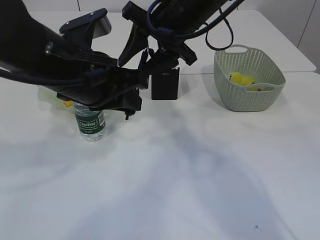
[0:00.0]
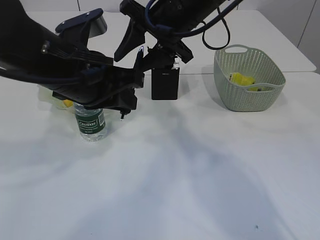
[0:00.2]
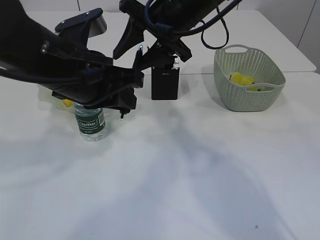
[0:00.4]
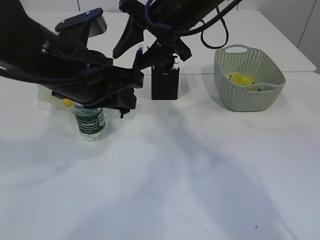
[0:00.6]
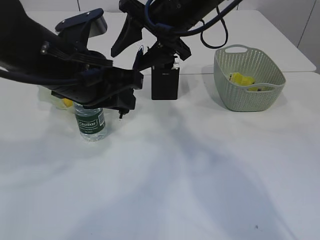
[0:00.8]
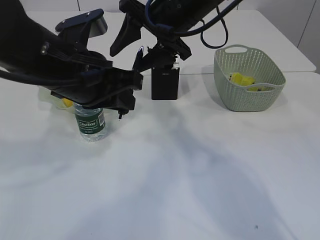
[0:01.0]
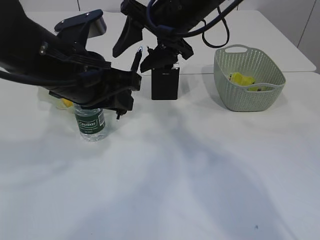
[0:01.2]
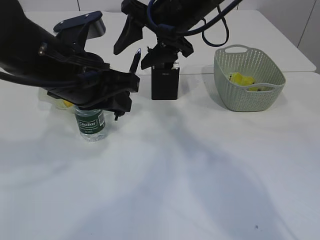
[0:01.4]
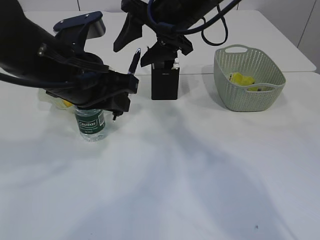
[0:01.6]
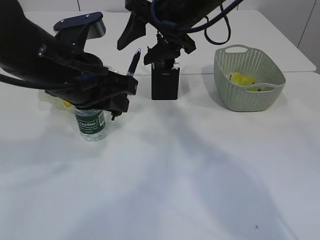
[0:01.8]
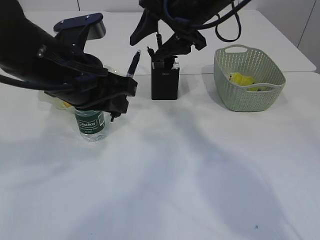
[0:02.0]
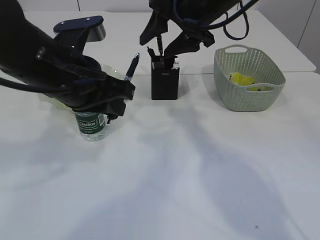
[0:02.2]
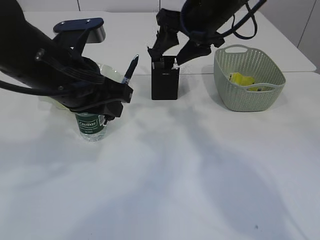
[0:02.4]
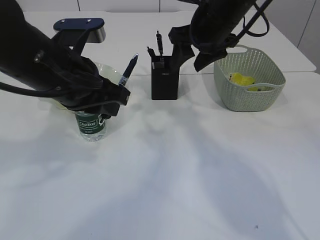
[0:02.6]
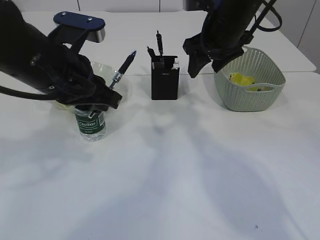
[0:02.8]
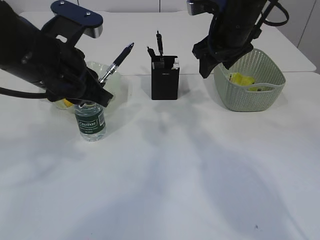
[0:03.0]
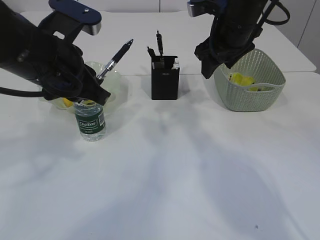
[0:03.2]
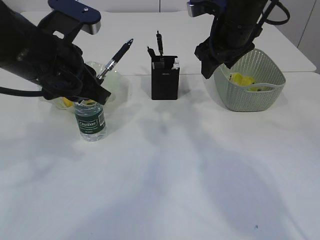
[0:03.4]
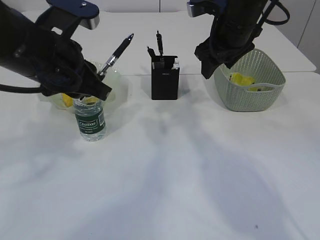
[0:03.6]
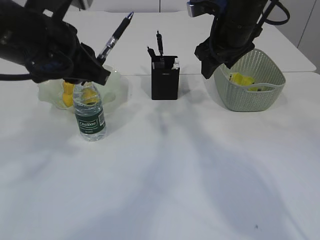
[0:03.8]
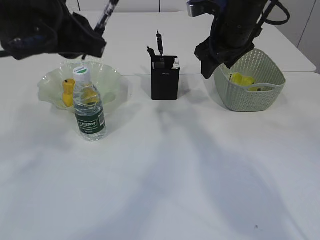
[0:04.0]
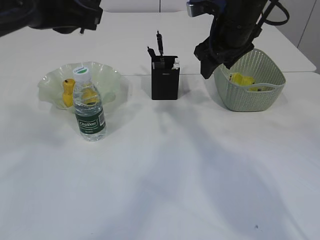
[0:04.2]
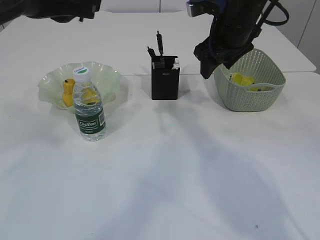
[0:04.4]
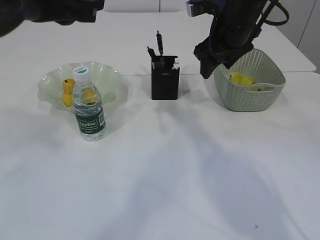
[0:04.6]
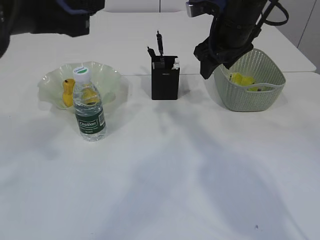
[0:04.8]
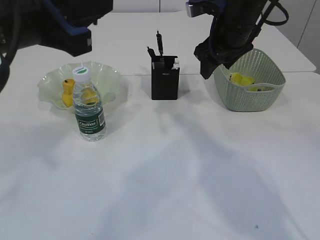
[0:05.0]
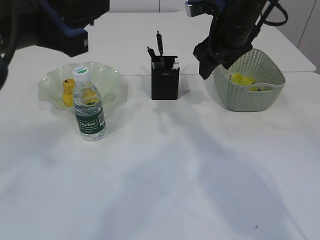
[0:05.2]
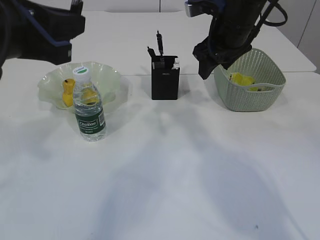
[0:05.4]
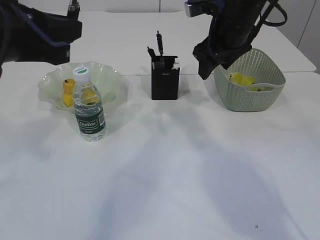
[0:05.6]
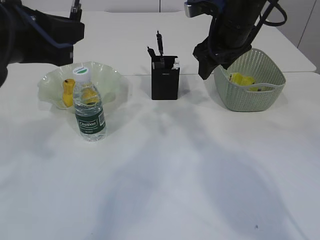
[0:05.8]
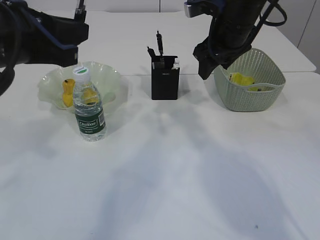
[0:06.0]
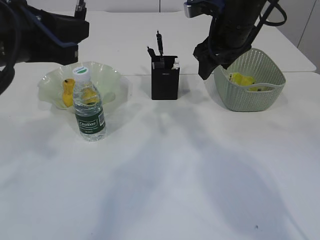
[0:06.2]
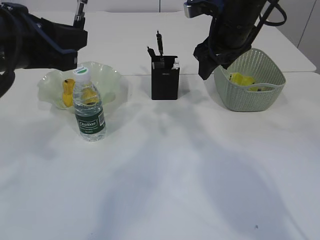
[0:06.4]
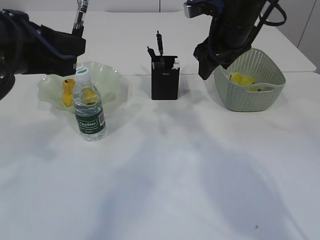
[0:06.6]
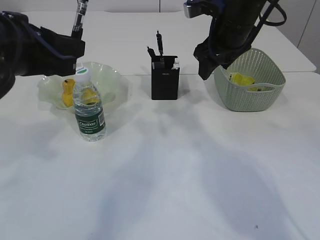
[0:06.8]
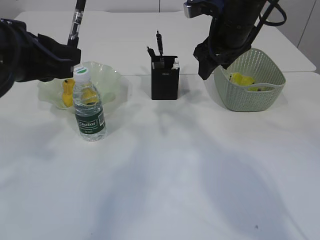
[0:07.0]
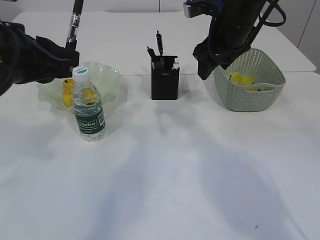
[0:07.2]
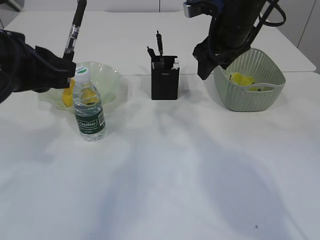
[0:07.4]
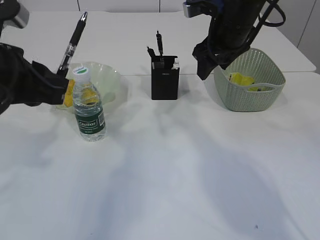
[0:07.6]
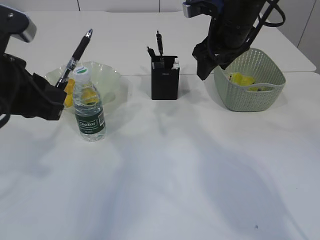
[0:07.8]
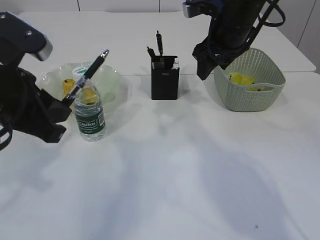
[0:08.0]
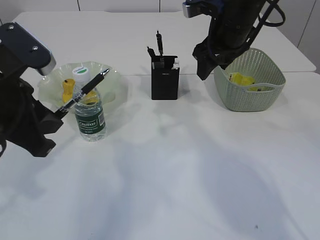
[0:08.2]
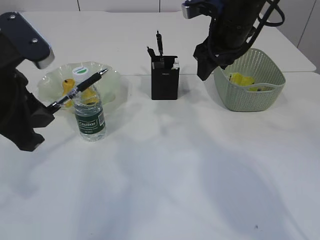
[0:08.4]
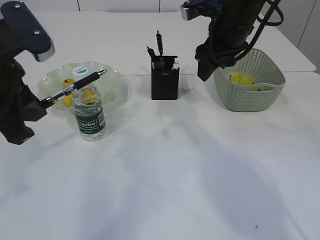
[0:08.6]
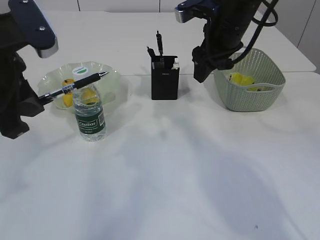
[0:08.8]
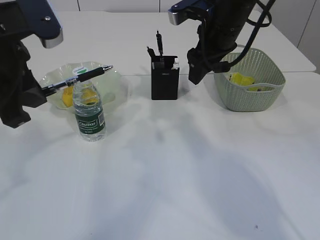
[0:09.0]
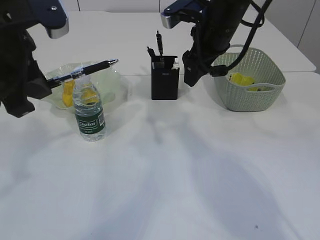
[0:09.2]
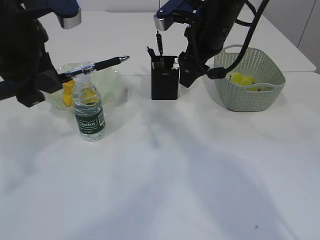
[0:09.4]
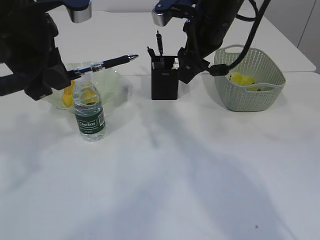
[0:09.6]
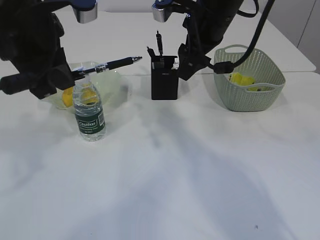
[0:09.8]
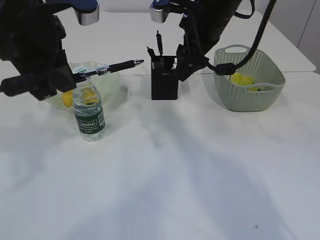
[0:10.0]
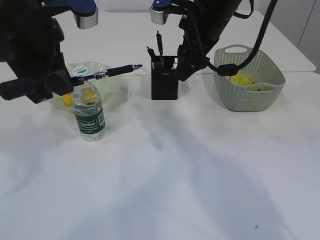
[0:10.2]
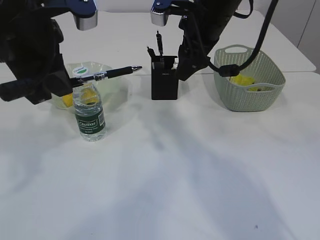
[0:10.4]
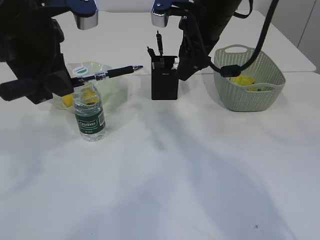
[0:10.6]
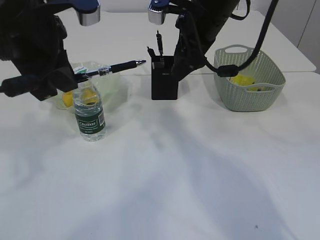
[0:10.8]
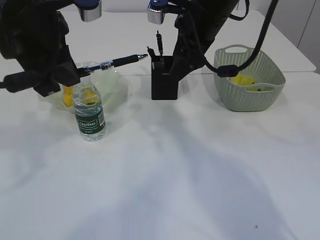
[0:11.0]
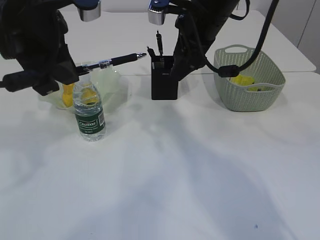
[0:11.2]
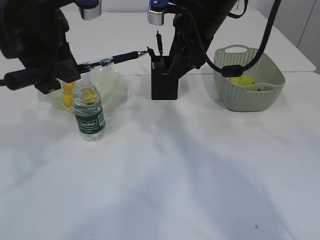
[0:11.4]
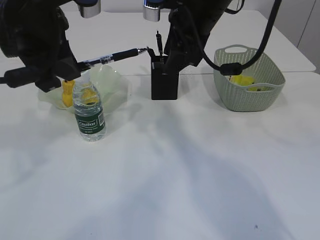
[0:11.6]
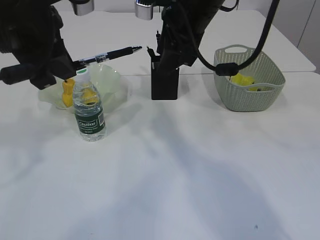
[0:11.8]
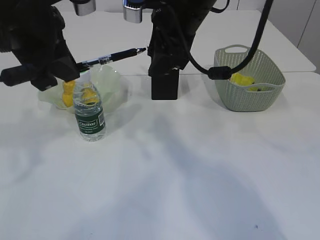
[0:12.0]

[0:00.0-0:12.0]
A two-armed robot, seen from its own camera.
0:00.0 to 0:01.6: There are only small adjustments of the grippers.
0:01.6 to 0:03.0: The right gripper shifts some 10 cm to the right.
0:03.0 to 0:04.4: The left gripper heads upward, covering approximately 10 cm.
0:04.4 to 0:06.0: The left gripper heads downward, covering approximately 5 cm.
0:10.4 to 0:12.0: The right gripper changes place by approximately 5 cm.

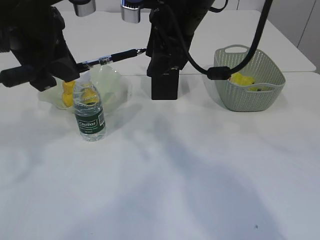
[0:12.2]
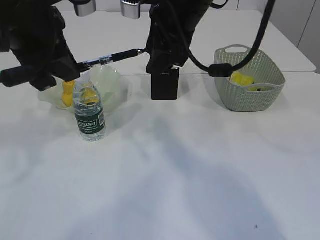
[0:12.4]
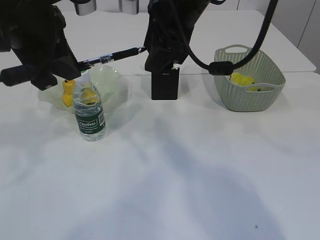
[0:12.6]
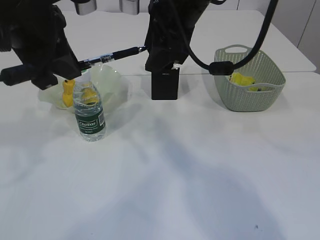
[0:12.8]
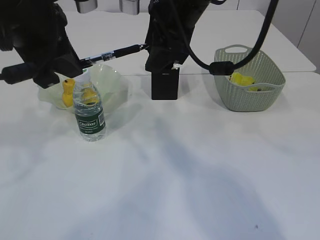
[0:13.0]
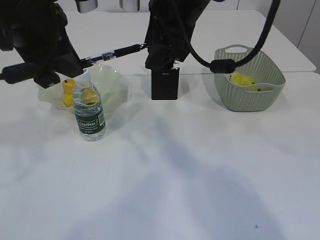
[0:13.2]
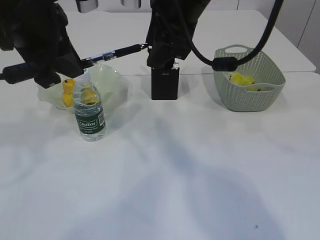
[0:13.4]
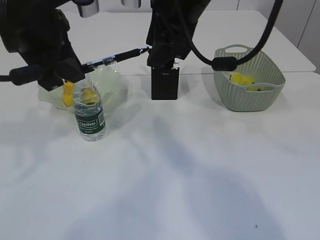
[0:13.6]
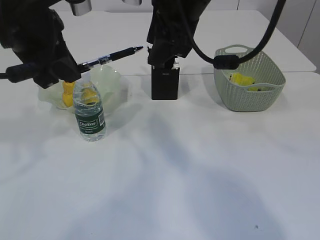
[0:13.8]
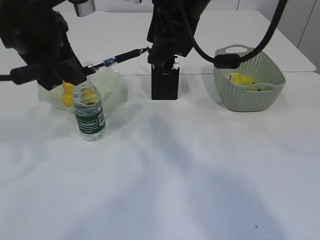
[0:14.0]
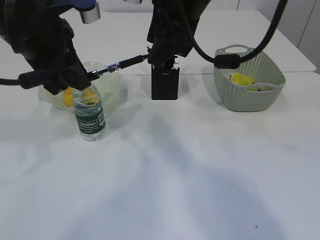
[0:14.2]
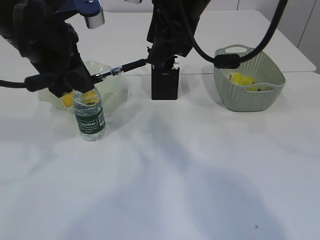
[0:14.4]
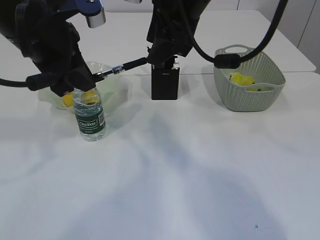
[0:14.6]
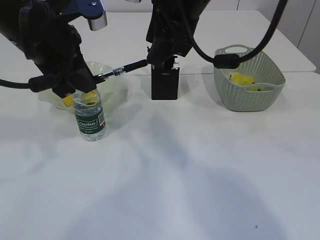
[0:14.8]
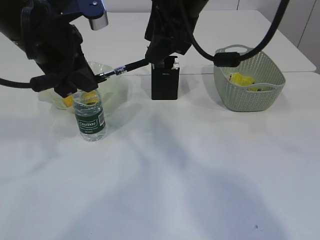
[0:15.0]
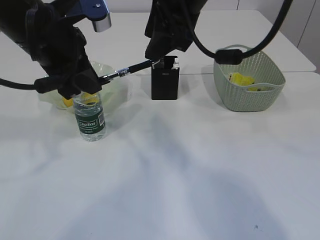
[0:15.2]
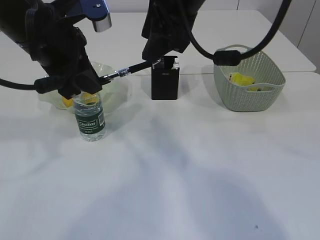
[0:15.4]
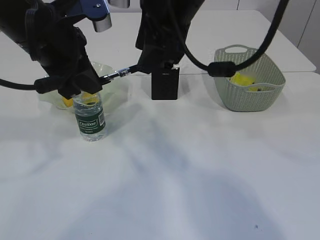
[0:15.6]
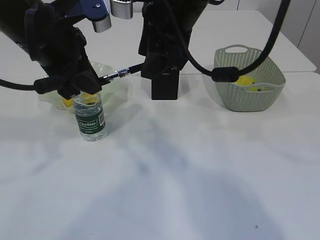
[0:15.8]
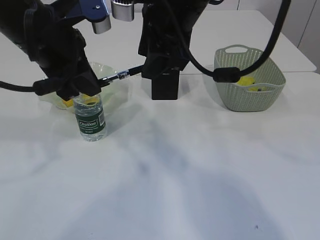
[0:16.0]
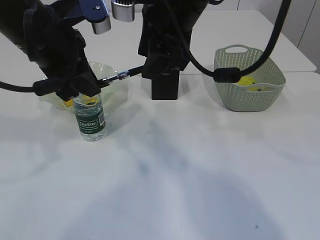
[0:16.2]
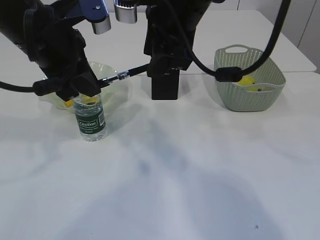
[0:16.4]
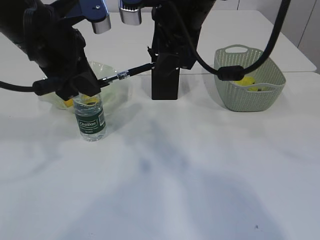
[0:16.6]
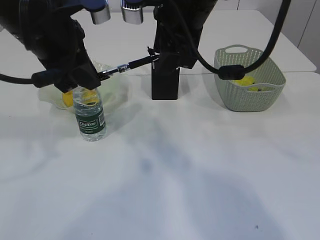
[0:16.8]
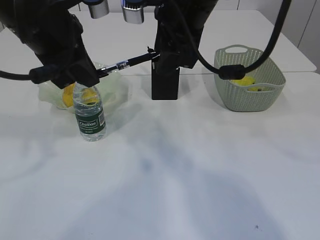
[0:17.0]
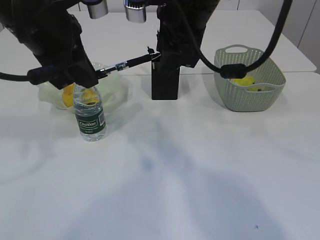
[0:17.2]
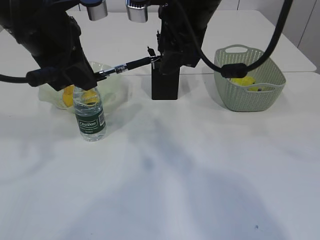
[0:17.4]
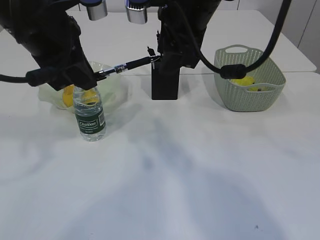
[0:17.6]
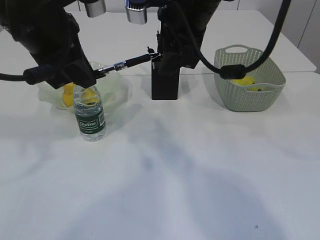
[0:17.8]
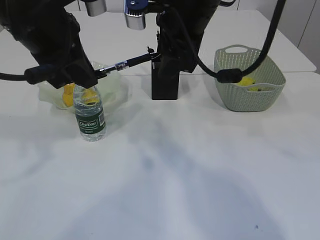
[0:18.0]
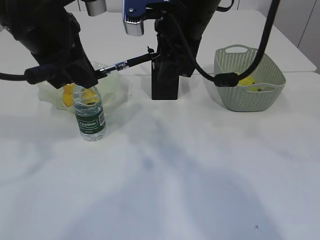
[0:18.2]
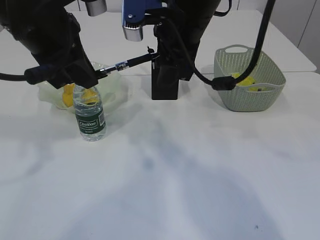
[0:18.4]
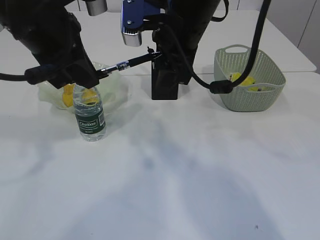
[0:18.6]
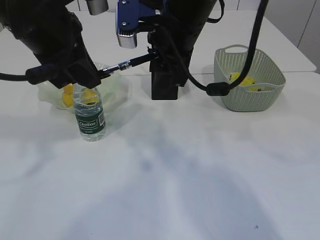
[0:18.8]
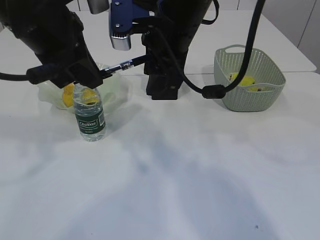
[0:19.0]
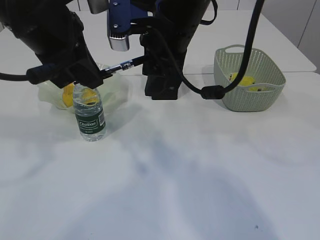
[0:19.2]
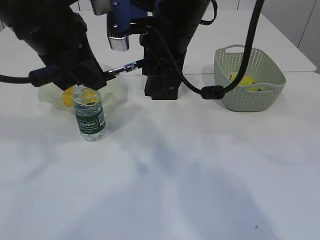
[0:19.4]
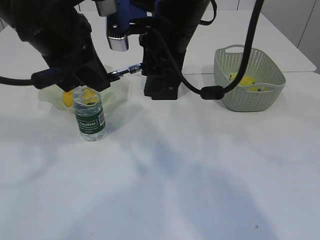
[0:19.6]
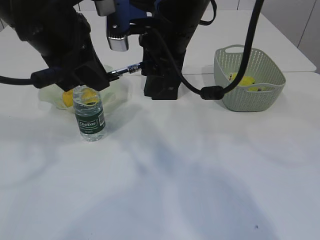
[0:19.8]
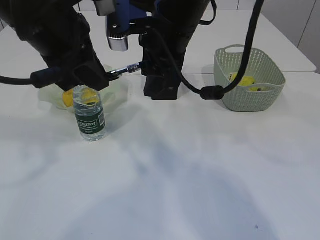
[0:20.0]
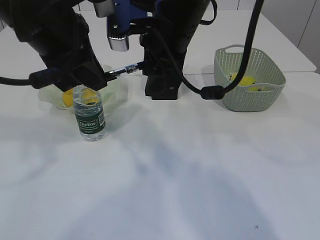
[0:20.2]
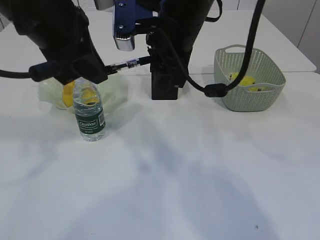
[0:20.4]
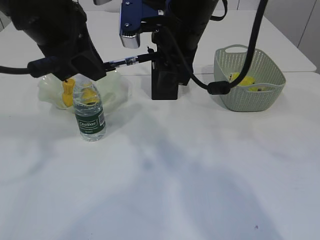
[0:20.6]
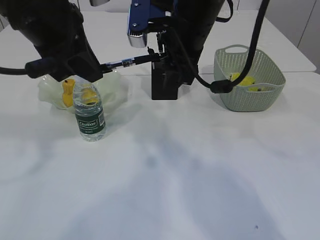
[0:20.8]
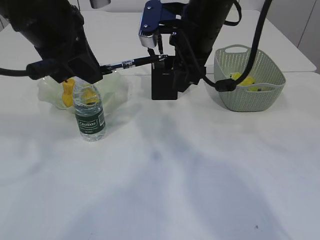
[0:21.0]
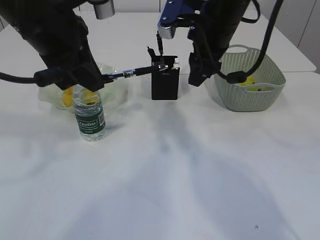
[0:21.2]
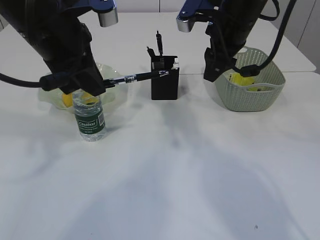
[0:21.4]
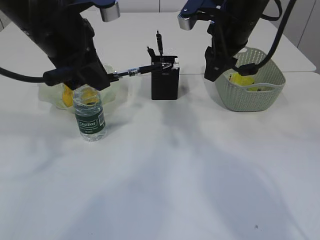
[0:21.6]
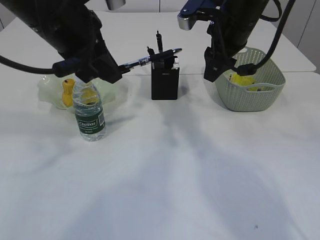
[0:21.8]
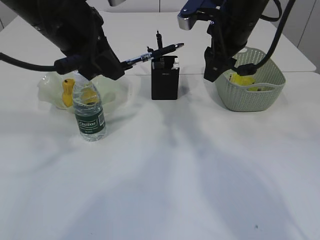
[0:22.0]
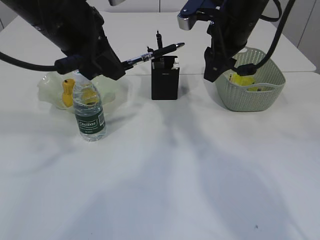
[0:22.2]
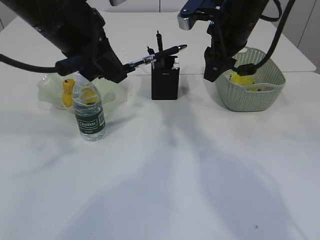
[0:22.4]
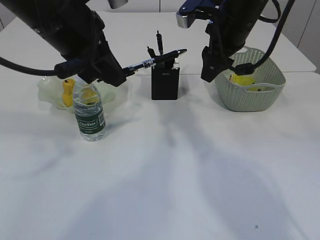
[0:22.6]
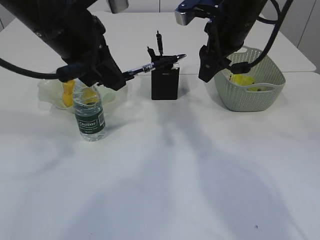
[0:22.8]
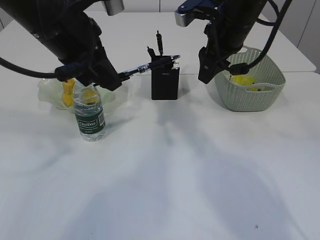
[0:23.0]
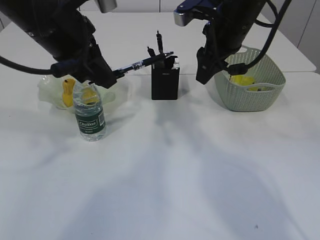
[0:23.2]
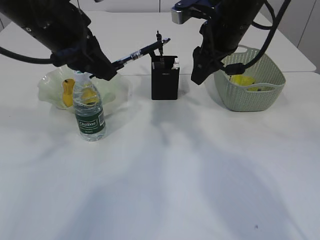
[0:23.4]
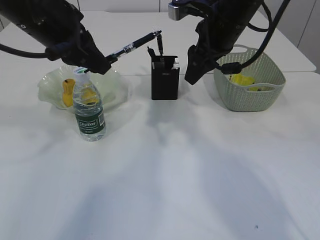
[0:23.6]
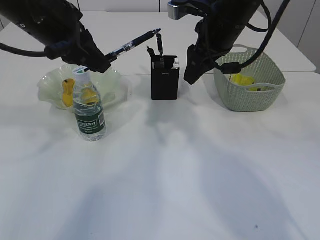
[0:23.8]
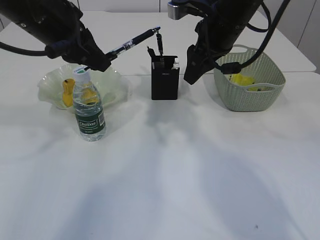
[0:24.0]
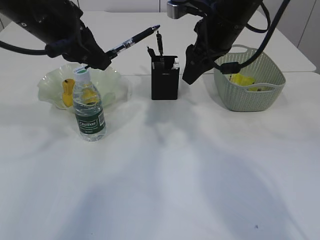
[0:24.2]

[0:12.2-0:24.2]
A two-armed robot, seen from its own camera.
0:12.2 to 0:19.8: There are only small adjustments of the grippers.
0:19.8 to 0:21.2: The right gripper is displaced to the right by about 5 cm.
0:21.2 to 0:22.6: The grippers move only a little.
0:22.6 to 0:24.2: There are only small adjustments of the grippers.
